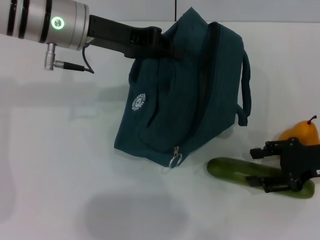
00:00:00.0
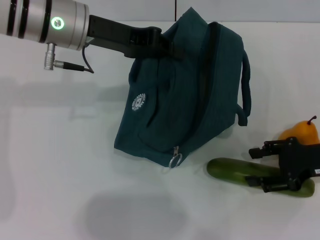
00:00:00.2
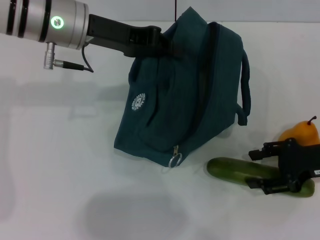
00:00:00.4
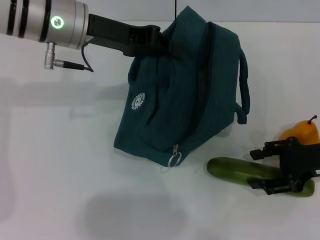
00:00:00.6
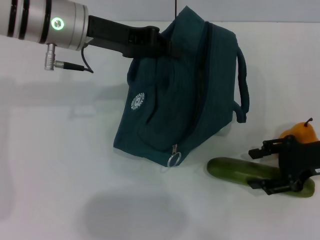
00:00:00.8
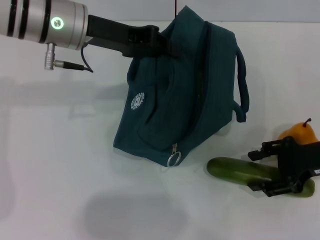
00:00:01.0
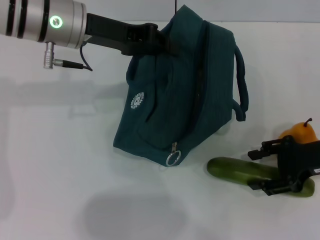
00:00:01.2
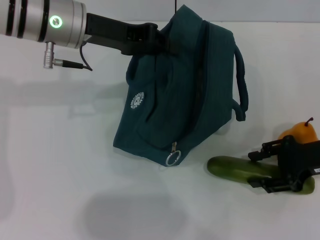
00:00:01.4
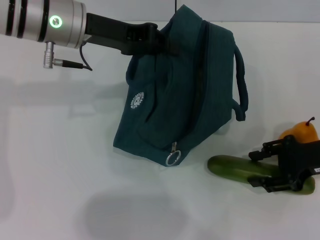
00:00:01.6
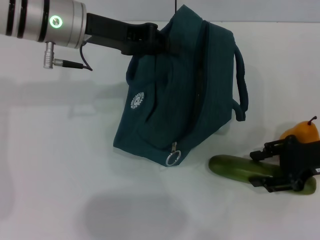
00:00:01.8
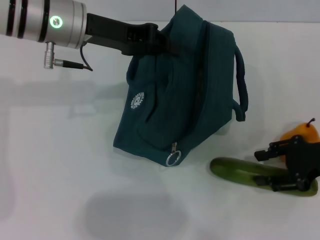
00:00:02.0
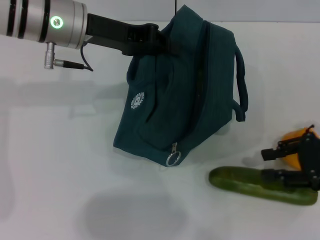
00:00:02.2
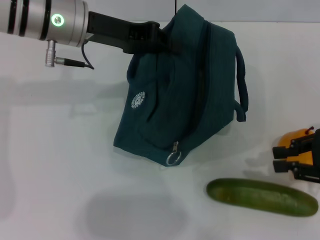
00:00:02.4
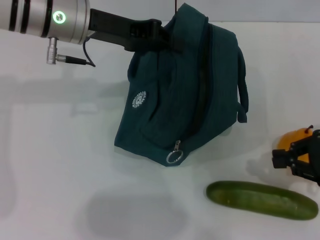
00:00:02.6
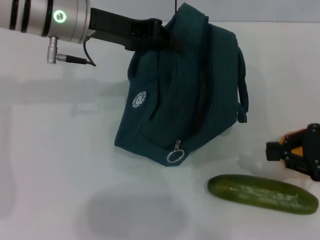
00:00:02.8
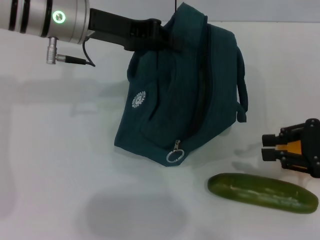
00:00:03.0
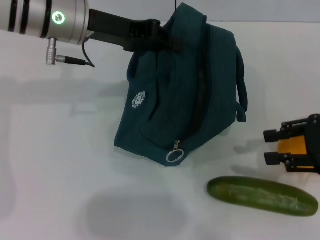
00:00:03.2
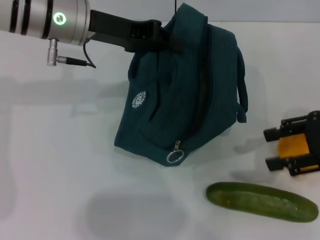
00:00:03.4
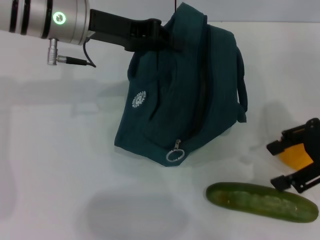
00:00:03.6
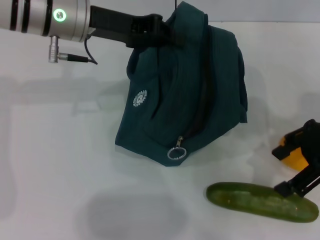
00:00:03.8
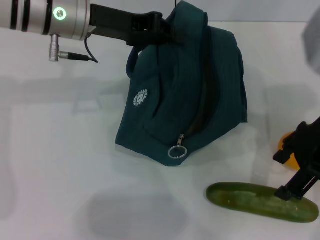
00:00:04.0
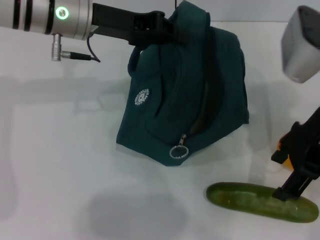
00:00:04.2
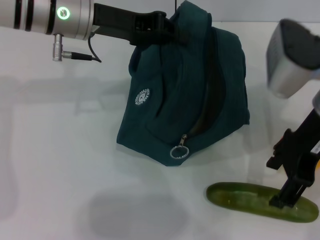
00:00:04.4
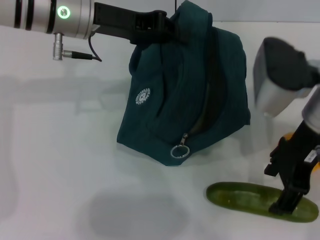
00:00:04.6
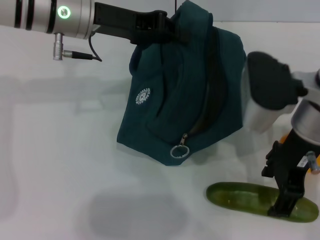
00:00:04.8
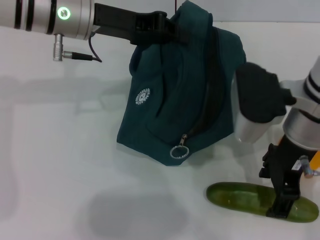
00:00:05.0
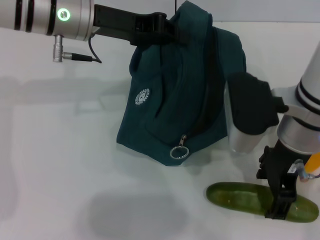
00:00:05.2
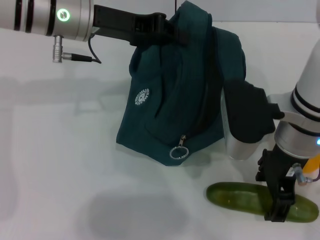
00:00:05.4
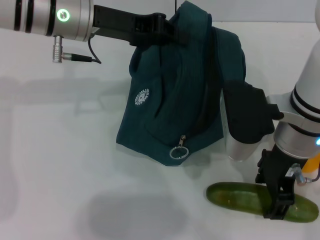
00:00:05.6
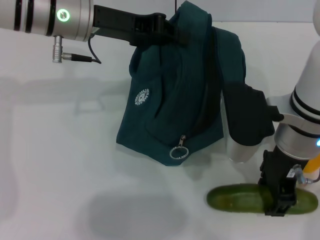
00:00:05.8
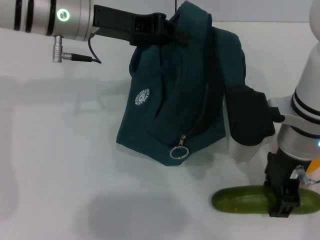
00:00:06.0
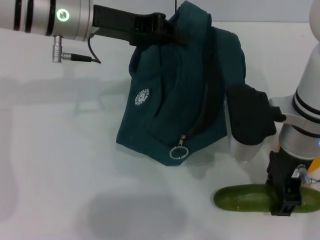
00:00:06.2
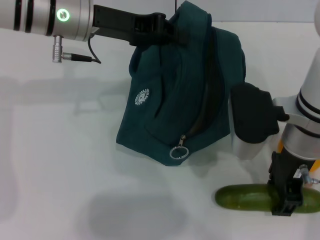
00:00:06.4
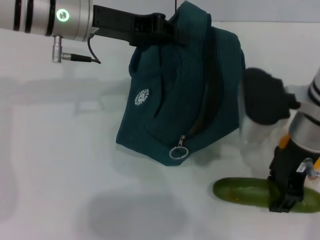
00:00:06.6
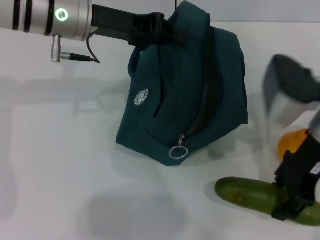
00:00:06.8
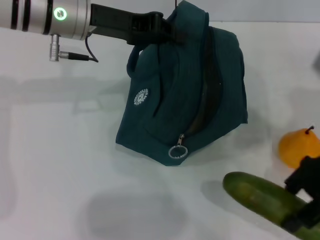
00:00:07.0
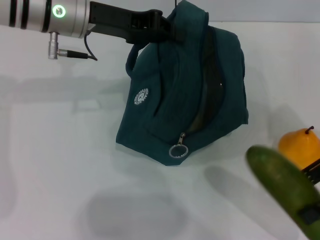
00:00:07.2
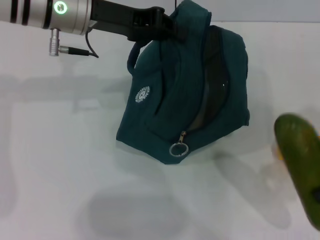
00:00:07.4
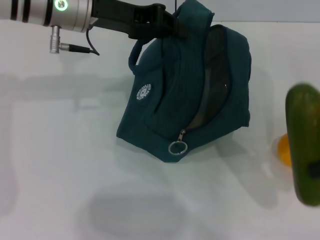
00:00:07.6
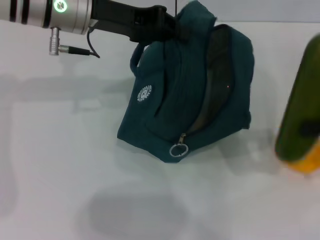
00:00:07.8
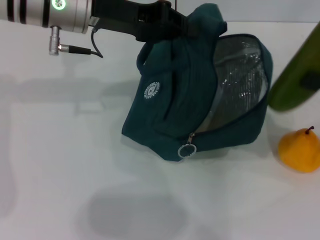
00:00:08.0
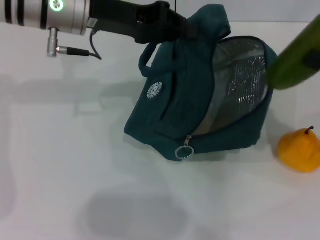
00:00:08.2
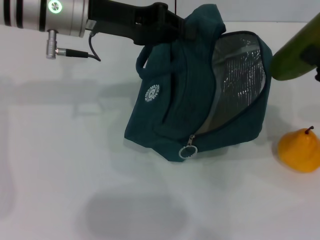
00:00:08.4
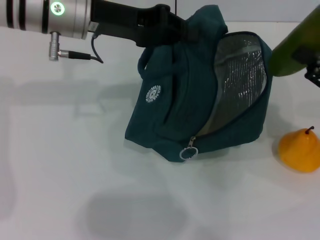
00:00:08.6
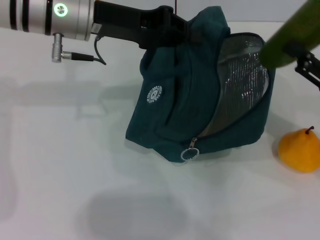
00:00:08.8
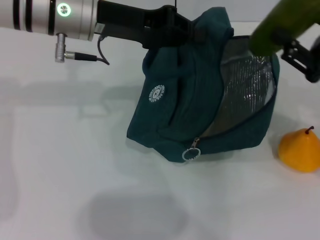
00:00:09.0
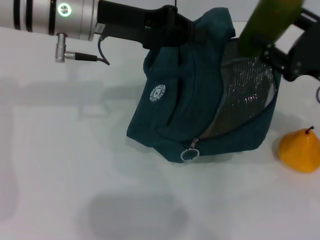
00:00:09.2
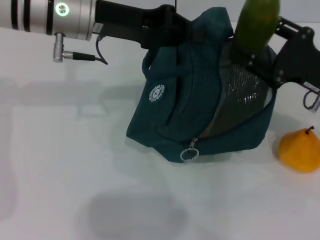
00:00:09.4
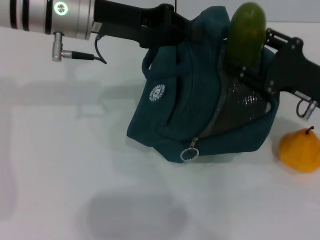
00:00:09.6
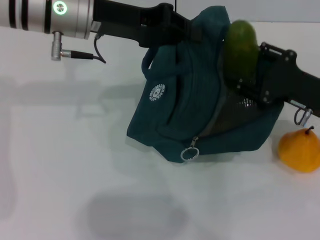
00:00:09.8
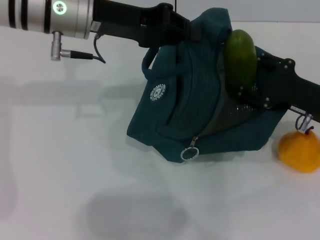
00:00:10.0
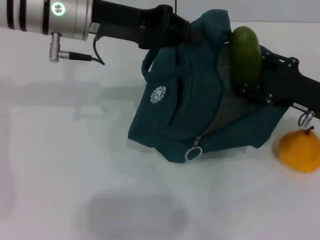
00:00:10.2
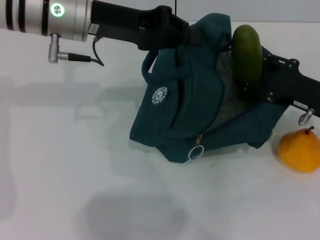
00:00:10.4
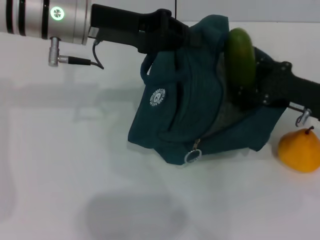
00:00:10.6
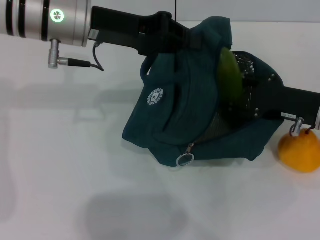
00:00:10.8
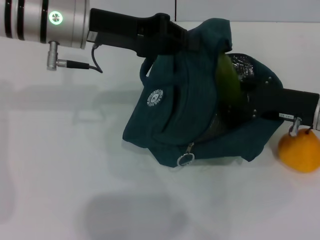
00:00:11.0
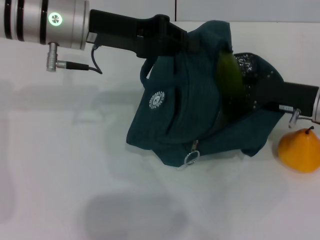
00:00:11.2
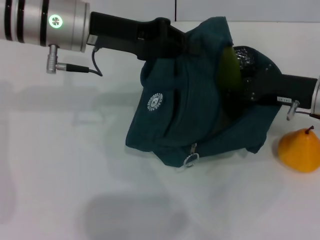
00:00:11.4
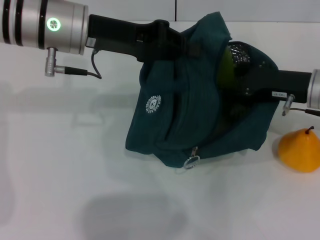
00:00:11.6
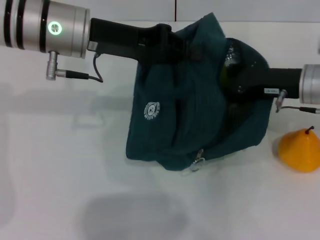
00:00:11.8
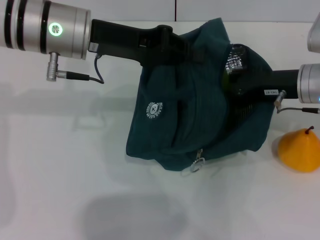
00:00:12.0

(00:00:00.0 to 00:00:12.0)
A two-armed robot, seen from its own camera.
Step, 00:00:00.0 - 00:00:06.0: Pick up the cucumber with your right hand.
00:00:00.0 - 00:00:01.6: There are only small adjustments of the grippers.
00:00:01.6 - 00:00:03.0: The right gripper closes its fingers.
00:00:03.0 - 00:00:04.4: The right gripper moves to the left and upward, approximately 15 cm, and opens.
00:00:04.4 - 00:00:06.0: The right gripper shifts about 5 cm downward.
00:00:06.0 - 00:00:07.6: The right gripper goes about 20 cm to the right.
00:00:07.6 - 00:00:09.0: The right gripper changes place by about 5 cm.
00:00:09.0 - 00:00:10.4: The right gripper heads downward, covering about 5 cm.
00:00:10.4 - 00:00:12.0: The right gripper moves some 10 cm.

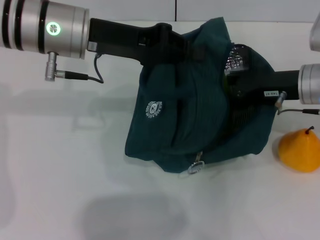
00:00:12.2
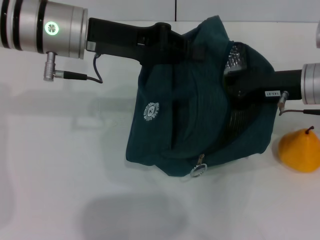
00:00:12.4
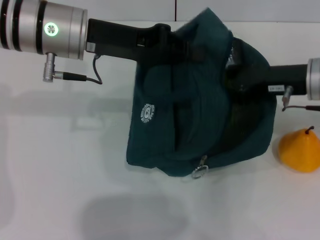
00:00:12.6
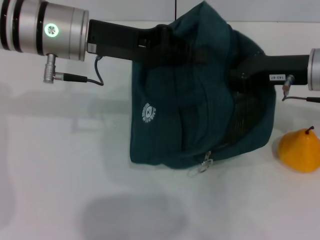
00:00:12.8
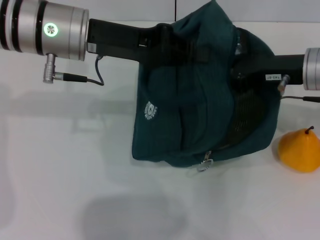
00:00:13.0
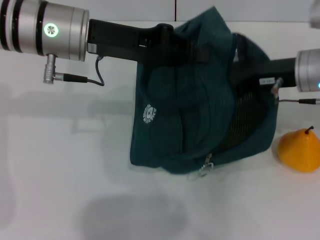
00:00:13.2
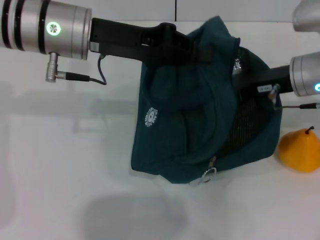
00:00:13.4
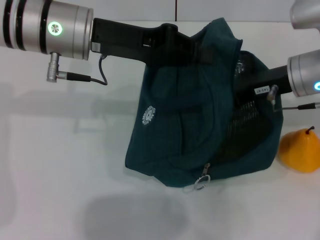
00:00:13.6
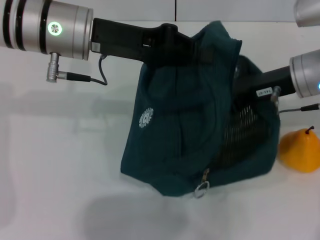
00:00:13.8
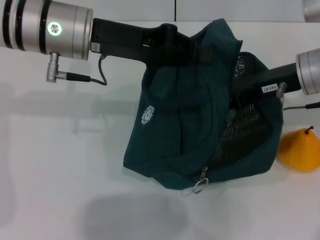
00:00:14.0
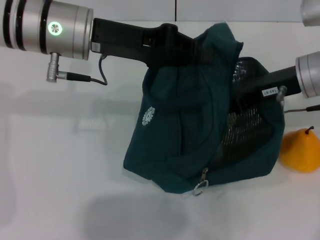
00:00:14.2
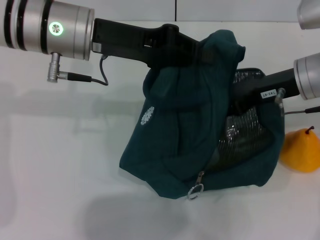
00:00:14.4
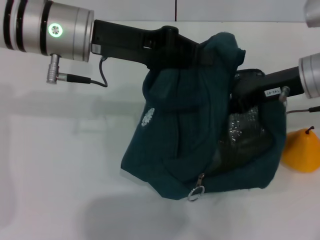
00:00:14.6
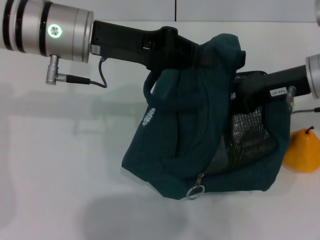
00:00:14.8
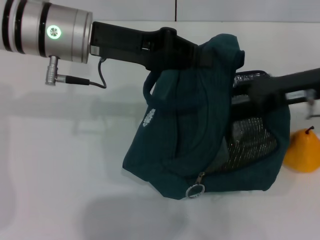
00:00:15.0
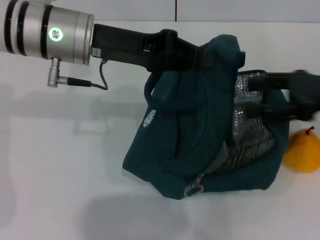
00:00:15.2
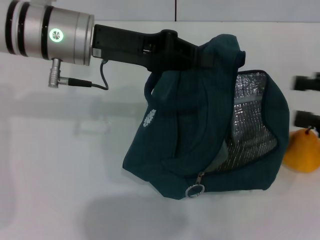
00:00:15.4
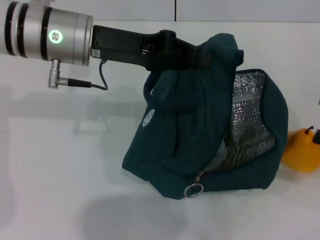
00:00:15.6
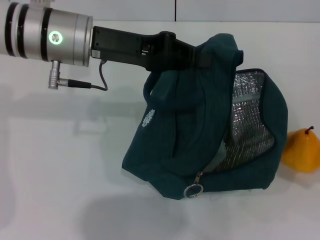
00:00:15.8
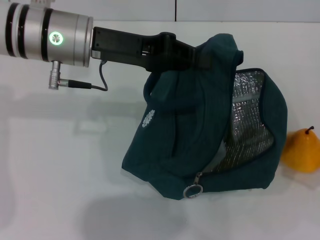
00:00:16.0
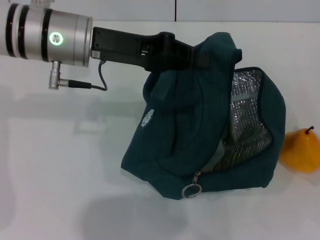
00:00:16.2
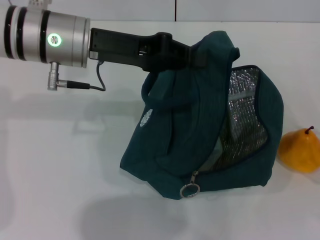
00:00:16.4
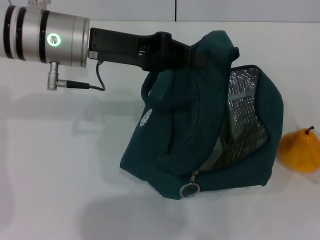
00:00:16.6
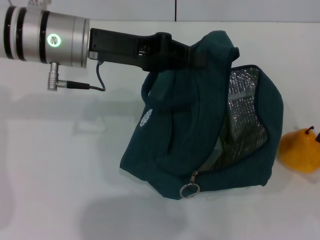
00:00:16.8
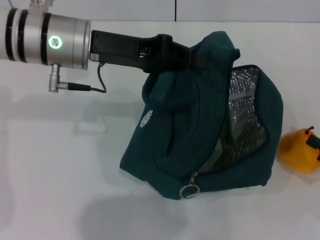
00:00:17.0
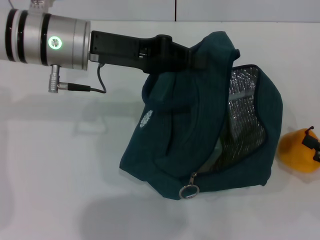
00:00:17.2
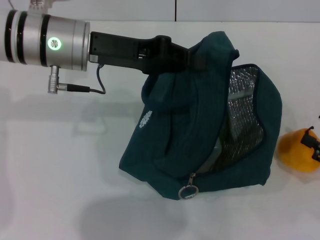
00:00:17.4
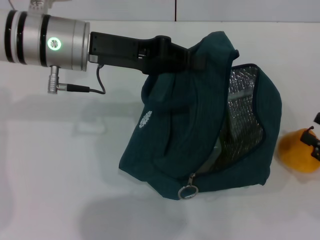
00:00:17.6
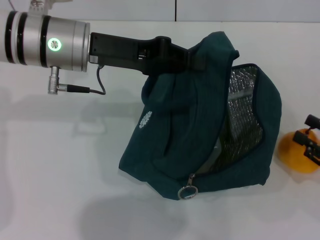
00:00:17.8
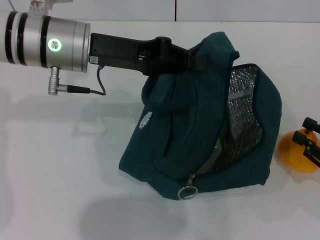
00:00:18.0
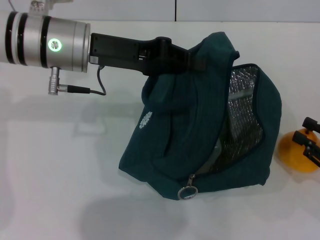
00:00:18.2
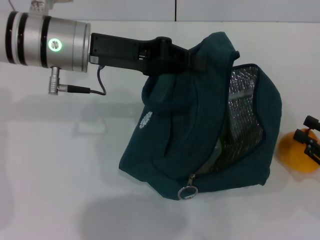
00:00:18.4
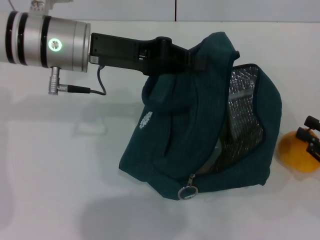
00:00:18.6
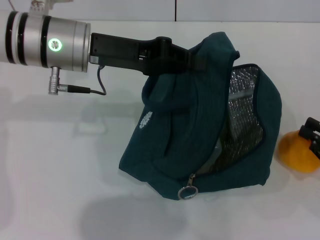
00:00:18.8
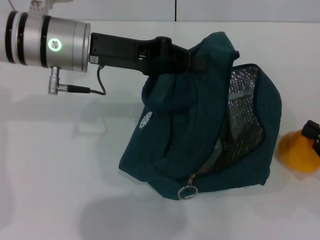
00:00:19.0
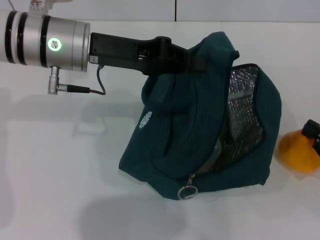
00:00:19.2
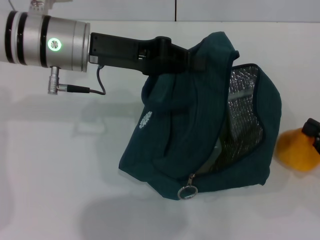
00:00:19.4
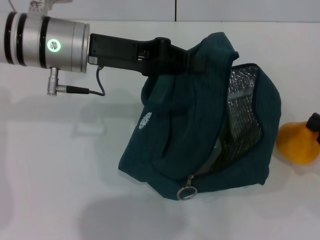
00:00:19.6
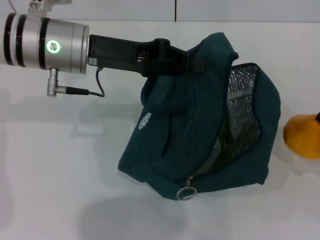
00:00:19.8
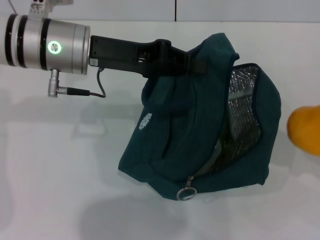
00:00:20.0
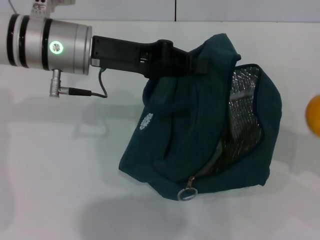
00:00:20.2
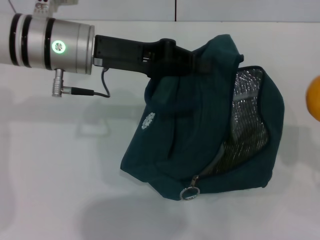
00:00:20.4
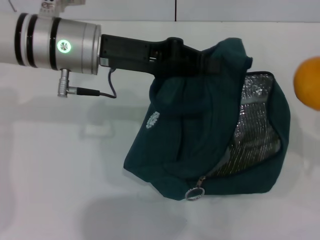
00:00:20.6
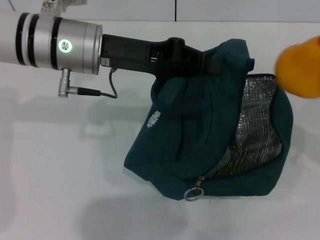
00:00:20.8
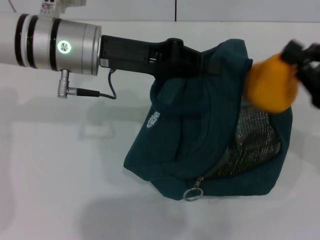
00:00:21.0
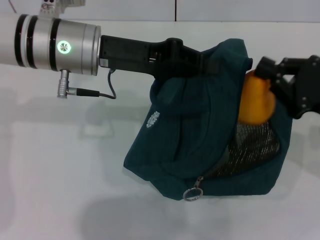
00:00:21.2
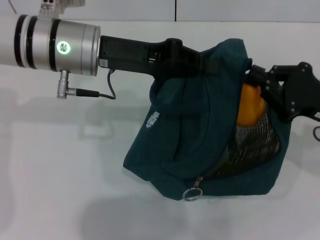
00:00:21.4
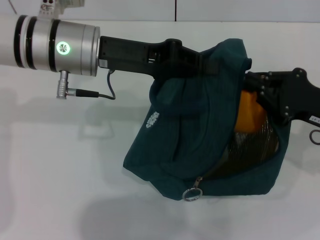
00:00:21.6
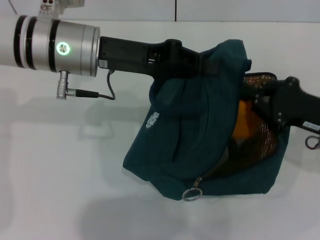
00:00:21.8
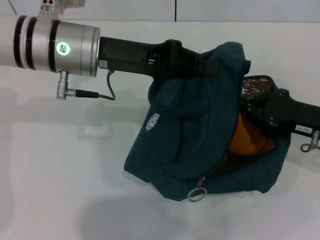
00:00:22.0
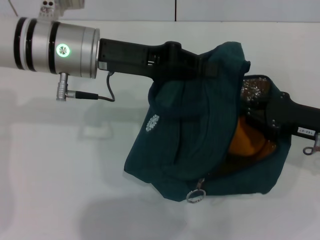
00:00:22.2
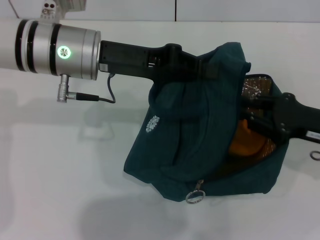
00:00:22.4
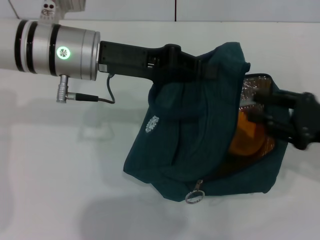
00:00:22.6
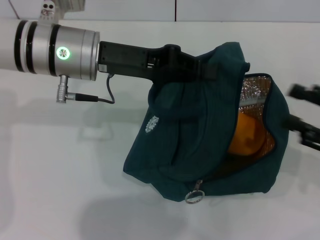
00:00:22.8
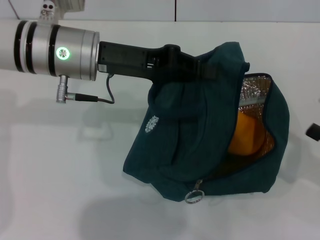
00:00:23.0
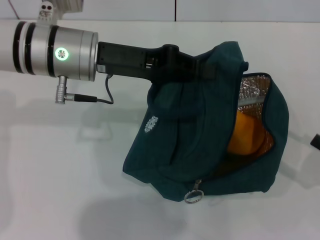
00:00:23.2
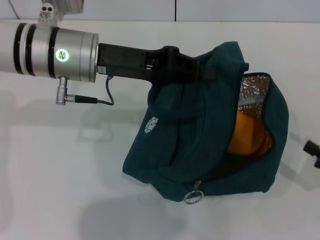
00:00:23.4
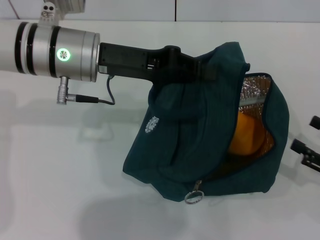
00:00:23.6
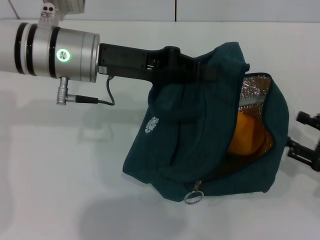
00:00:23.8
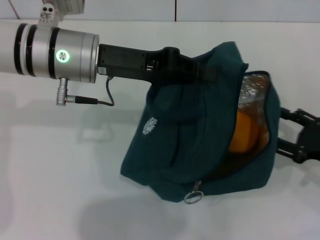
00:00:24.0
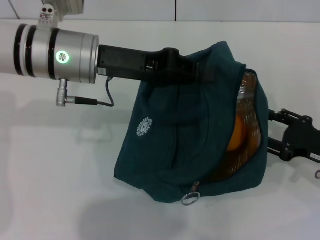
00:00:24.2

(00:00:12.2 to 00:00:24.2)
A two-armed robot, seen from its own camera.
Step, 00:00:12.2 - 00:00:14.8: Put the cucumber into the lunch bag with your right hand.
Step, 00:00:15.0 - 00:00:19.0: Grab the pear with your right hand.
00:00:12.2 - 00:00:13.8: The grippers move only a little.
00:00:13.8 - 00:00:15.2: The right gripper moves to the right and backward, approximately 10 cm.
00:00:15.2 - 00:00:16.6: The right gripper heads downward, backward and to the right, covering some 20 cm.
00:00:16.6 - 00:00:18.2: The right gripper closes its fingers.
00:00:18.2 - 00:00:19.8: The right gripper closes up.
00:00:19.8 - 00:00:21.2: The right gripper travels to the left and forward by roughly 10 cm.
00:00:21.2 - 00:00:22.6: The right gripper opens up.
00:00:22.6 - 00:00:24.2: The right gripper shifts roughly 5 cm downward, and opens its fingers.
